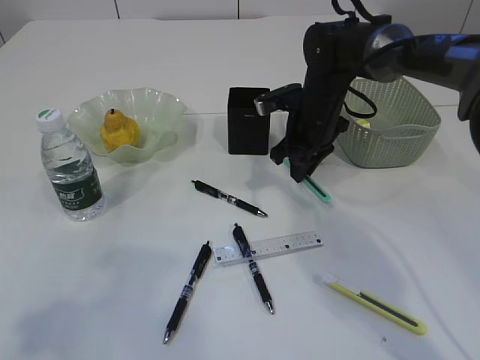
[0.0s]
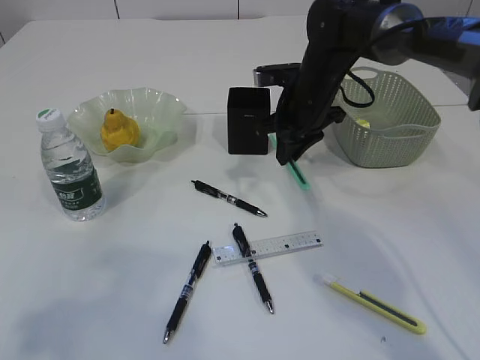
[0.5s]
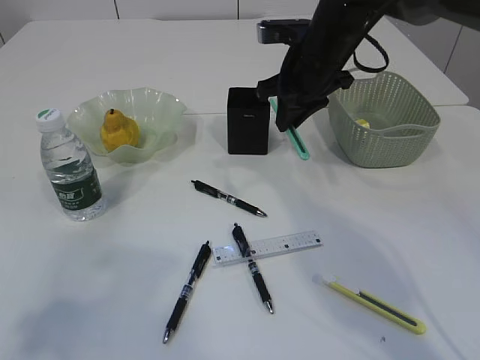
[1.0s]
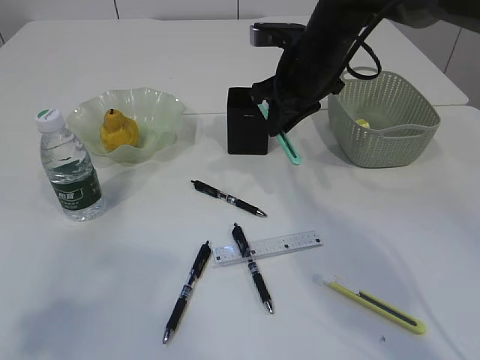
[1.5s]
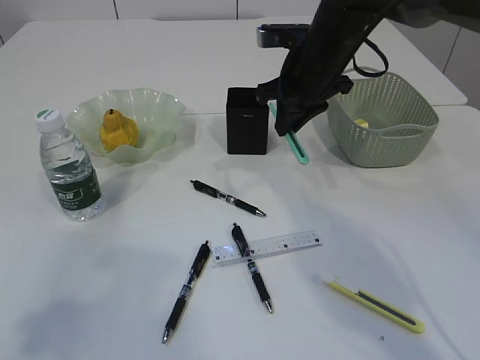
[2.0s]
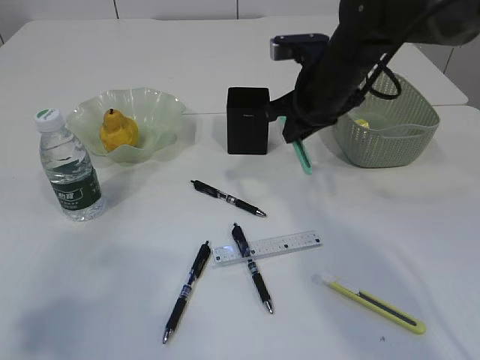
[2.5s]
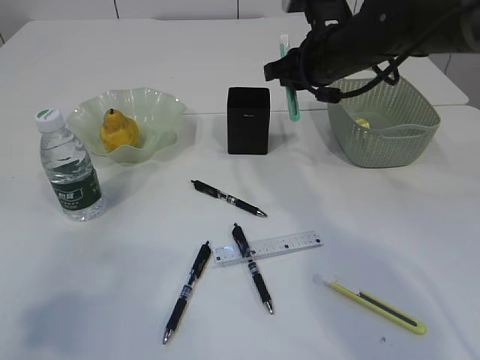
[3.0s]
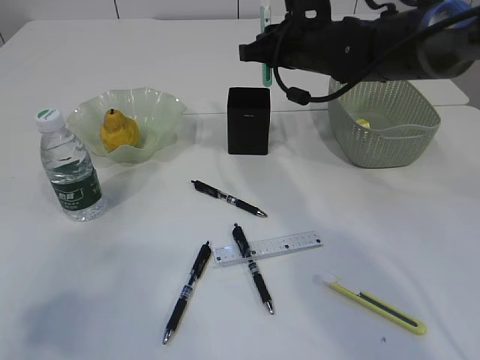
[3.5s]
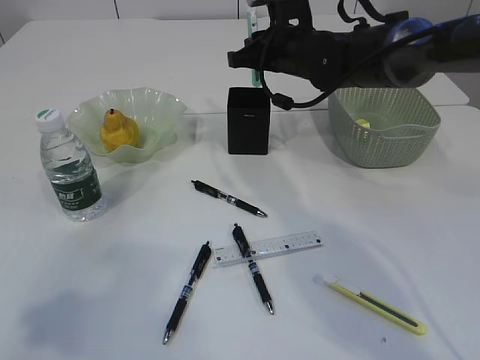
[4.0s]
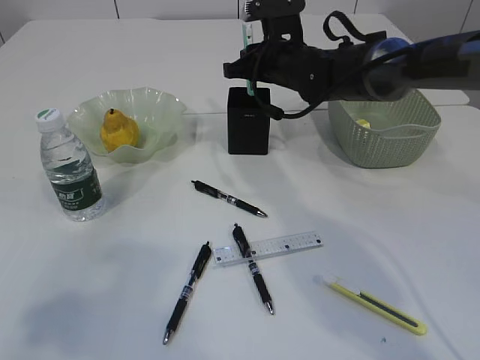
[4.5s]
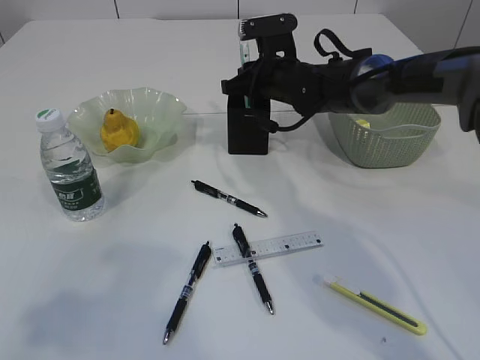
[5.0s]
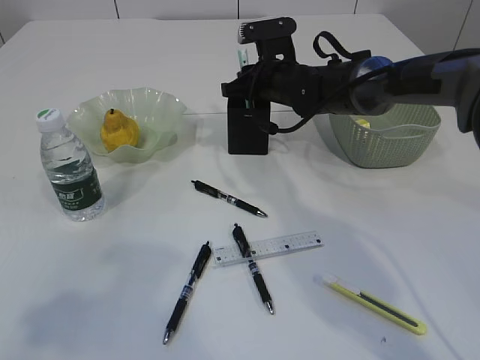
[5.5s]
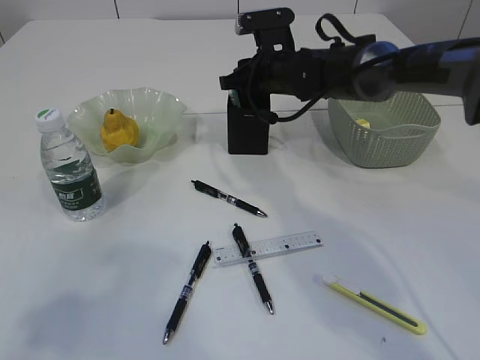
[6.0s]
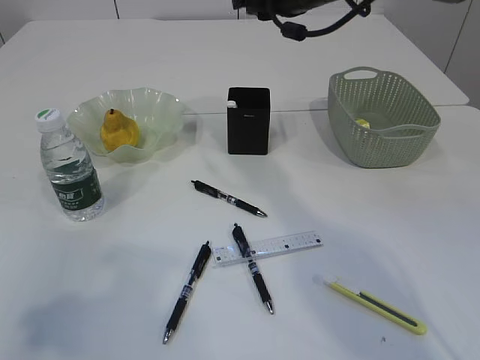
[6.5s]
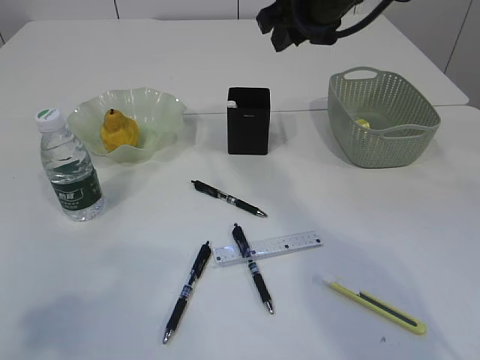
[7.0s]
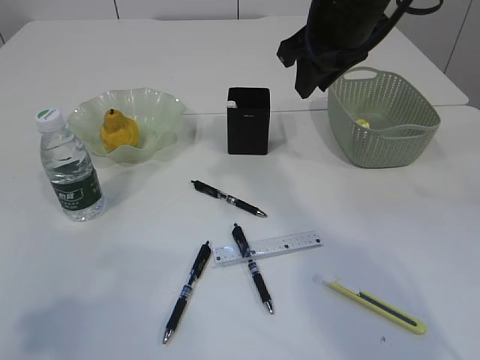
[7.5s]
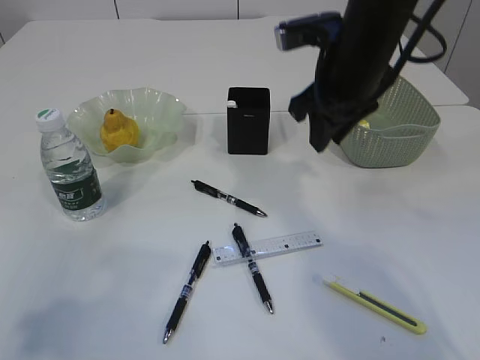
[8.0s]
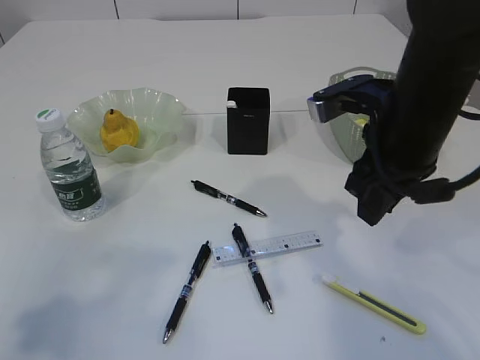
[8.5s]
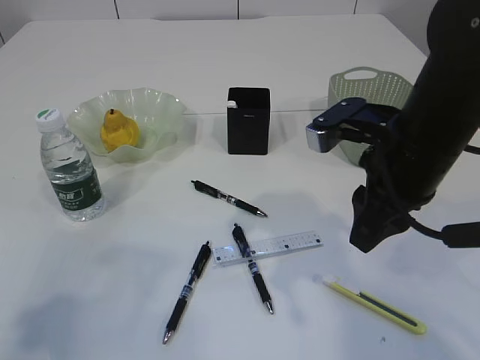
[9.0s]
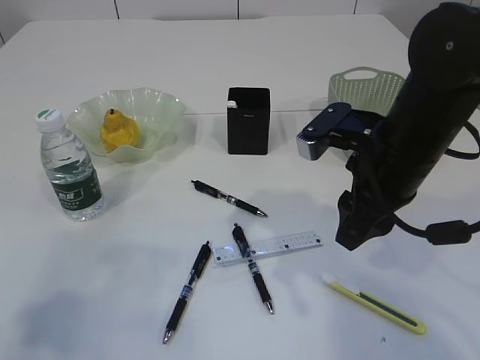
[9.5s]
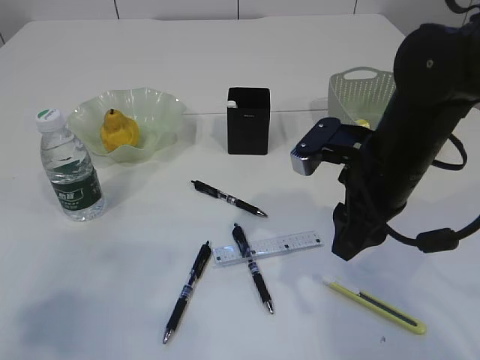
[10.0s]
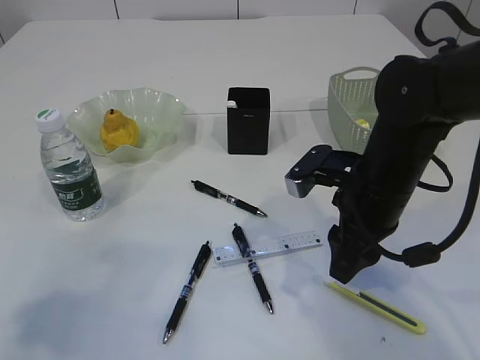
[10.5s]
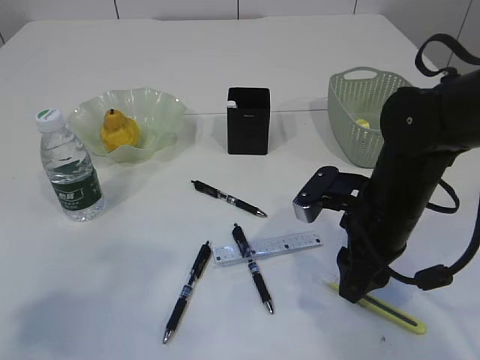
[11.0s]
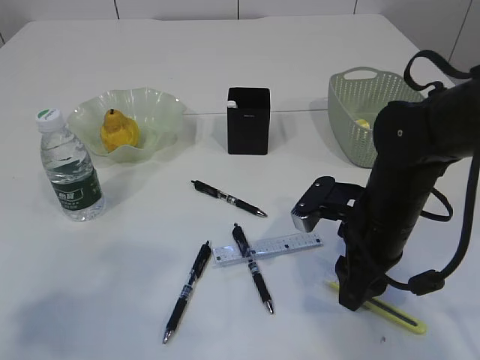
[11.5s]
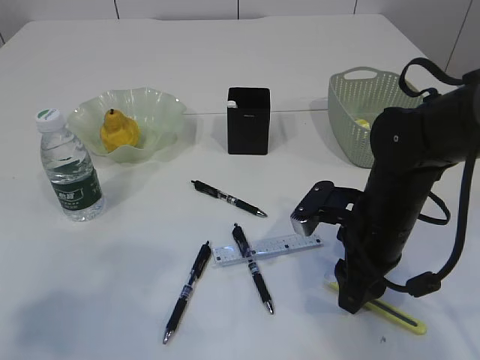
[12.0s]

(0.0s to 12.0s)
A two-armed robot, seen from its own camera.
Step, 2.0s - 6.0s: Place the blue knife into the pen holder.
0.0s - 2.0s: The right gripper shifts about 10 cm upward.
4.0s - 6.0s: The right gripper changes place by some 5 cm.
6.0s - 8.0s: The right gripper moves backward and upward, approximately 15 cm.
8.0s - 10.0s: The right gripper moves backward and downward, approximately 10 cm.
10.0s - 12.0s: The right gripper moves downward, about 10 cm.

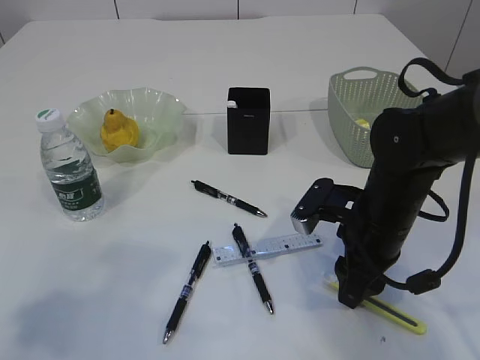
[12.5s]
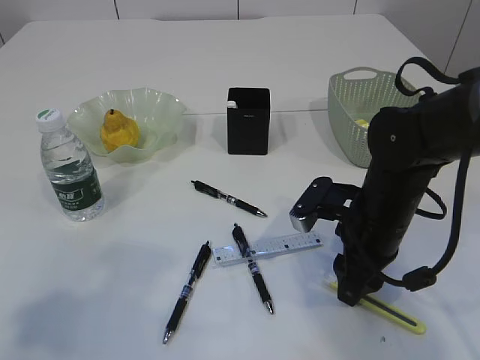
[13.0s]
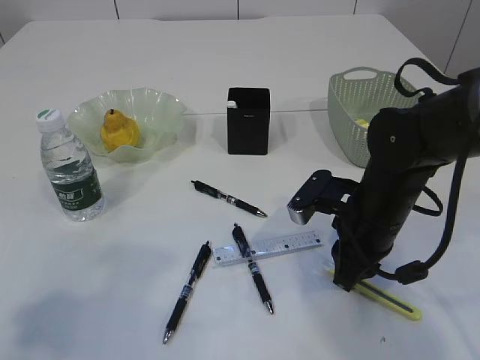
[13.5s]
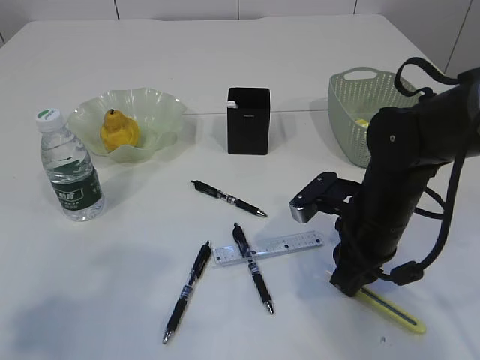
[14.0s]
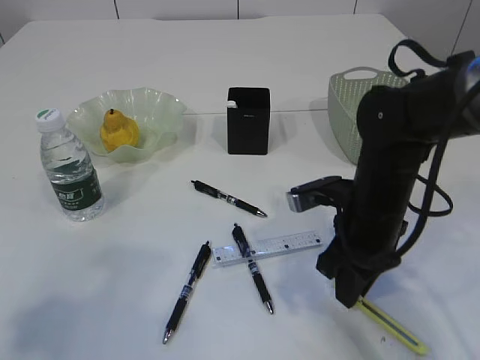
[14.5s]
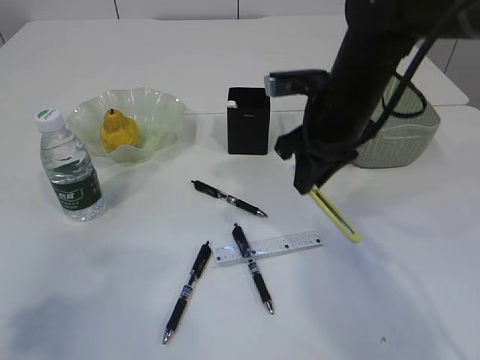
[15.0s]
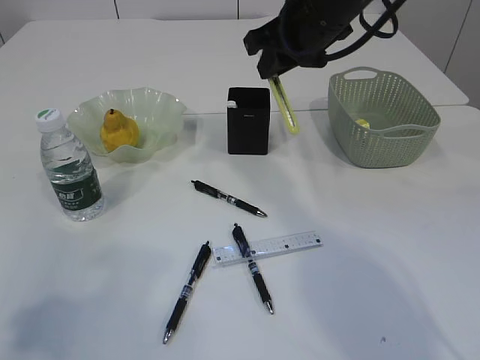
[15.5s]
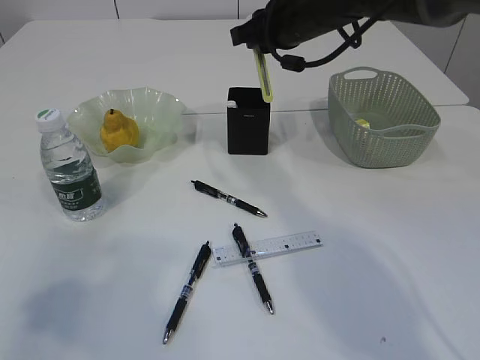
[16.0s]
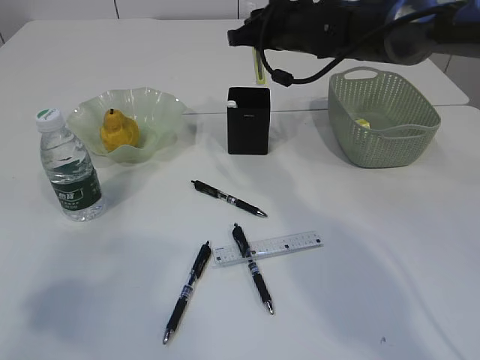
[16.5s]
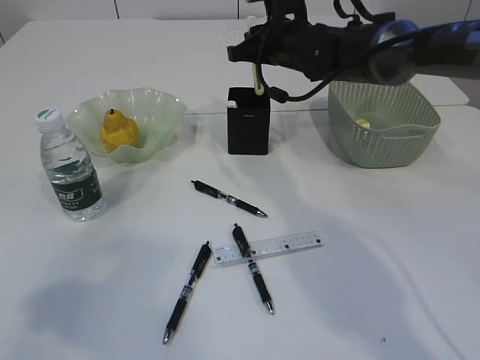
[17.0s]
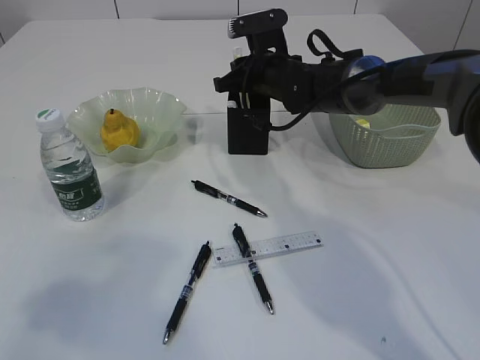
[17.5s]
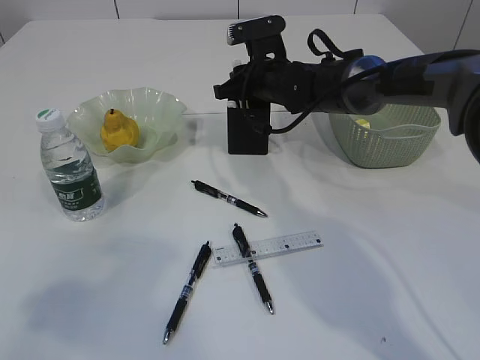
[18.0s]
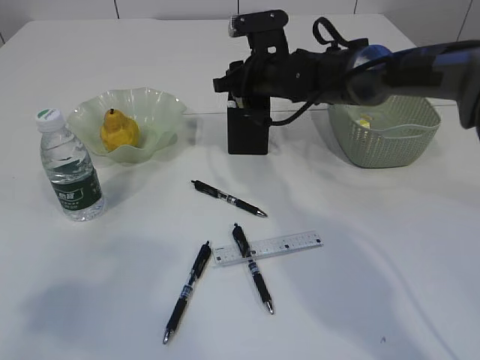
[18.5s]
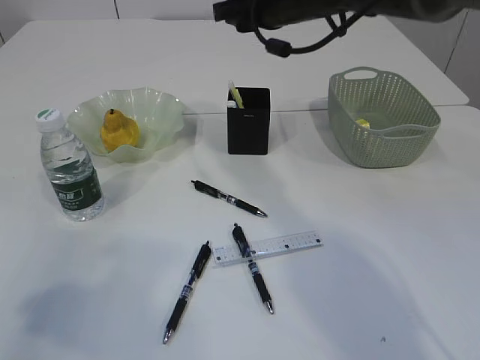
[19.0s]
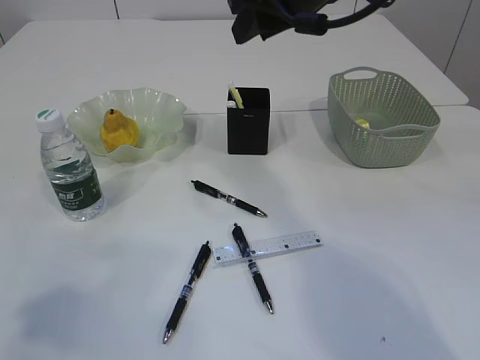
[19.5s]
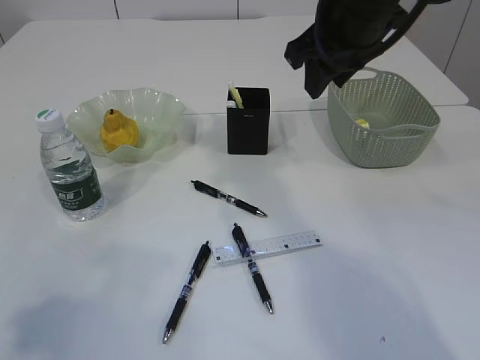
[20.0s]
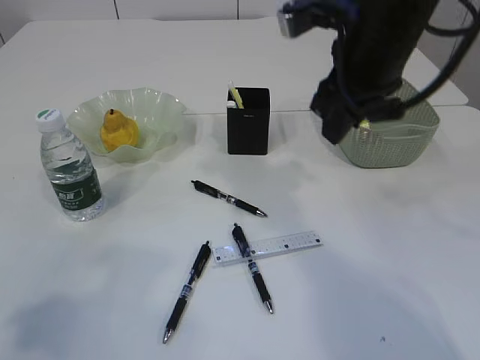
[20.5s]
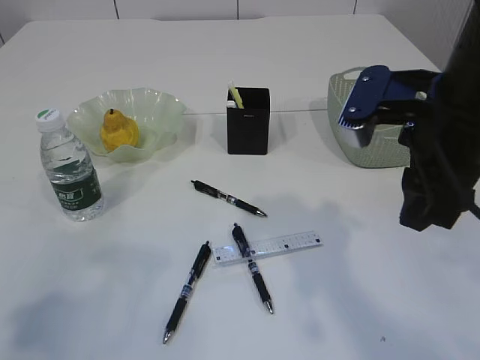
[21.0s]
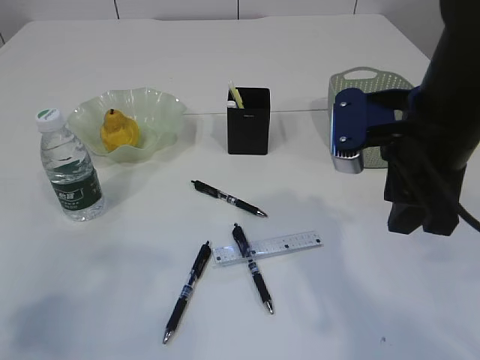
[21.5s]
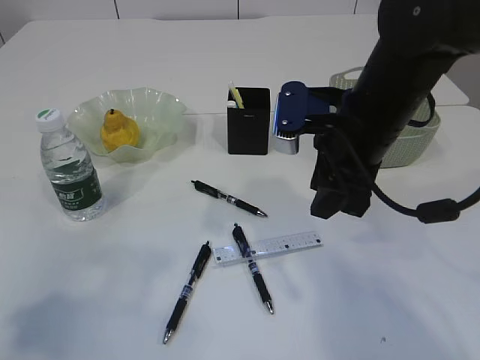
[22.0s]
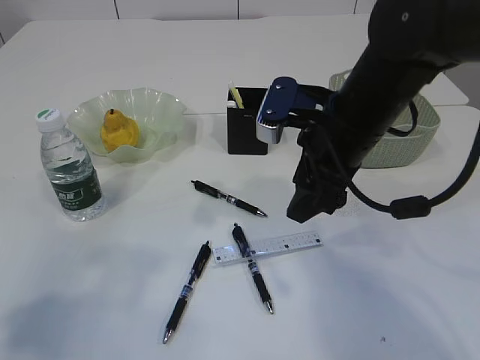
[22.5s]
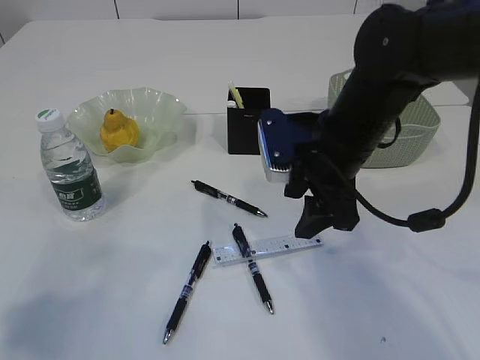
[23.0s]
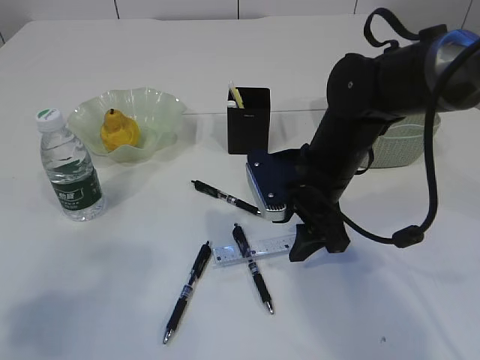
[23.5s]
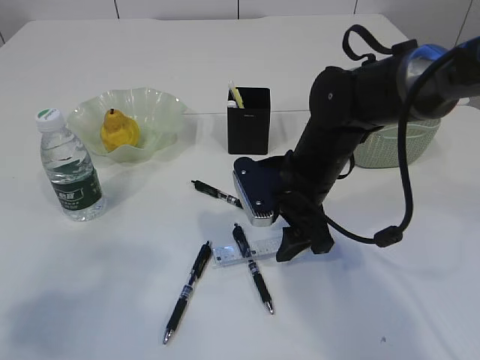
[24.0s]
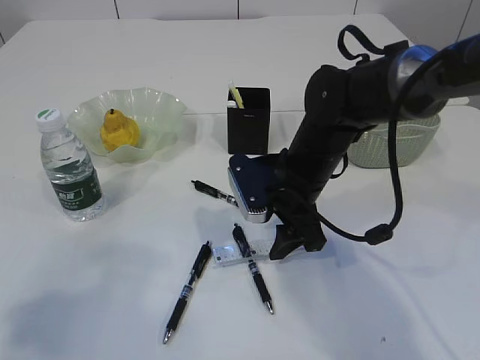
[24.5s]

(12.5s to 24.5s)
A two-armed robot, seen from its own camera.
Step, 12.5s - 15.0s: pick up the yellow knife.
Step, 15.5s - 18.5s: place the yellow knife into the pen holder.
12.5s - 14.5s: The right gripper closes up.
14.5s - 16.5s: The right gripper heads forward and upward, covering some 25 cm.
16.5s - 18.5s: The right gripper heads downward, covering about 5 cm, and opens.
18.5s - 20.5s: The right gripper shifts approximately 20 cm backward and upward.
20.5s - 22.5s: The right gripper is displaced downward by approximately 10 cm, and goes backward and returns, approximately 10 cm each way.
22.5s - 24.5s: The right gripper shifts about 10 cm downward.

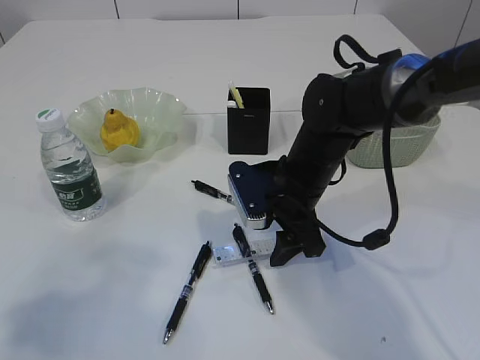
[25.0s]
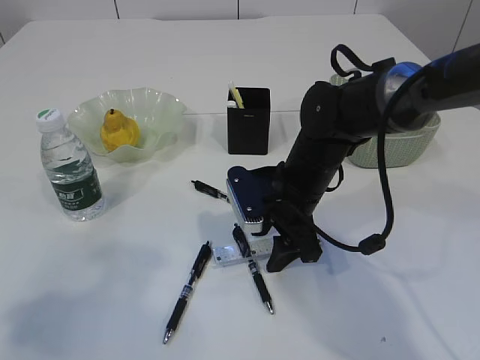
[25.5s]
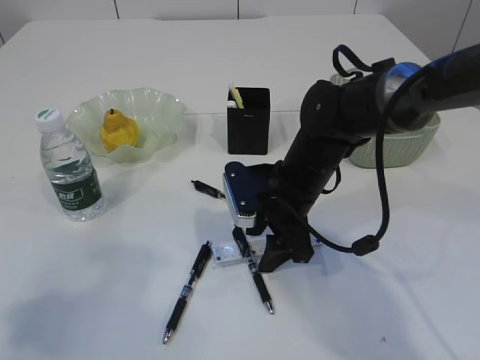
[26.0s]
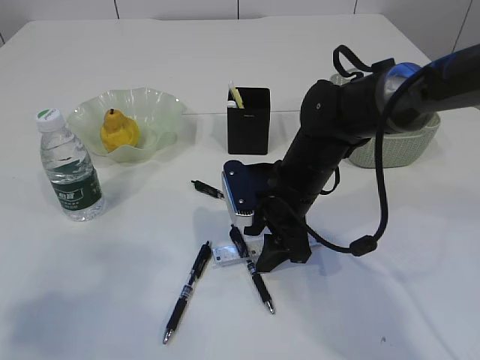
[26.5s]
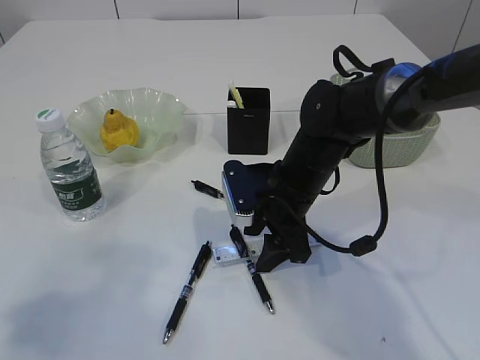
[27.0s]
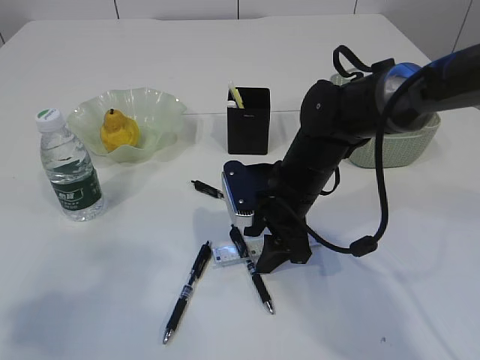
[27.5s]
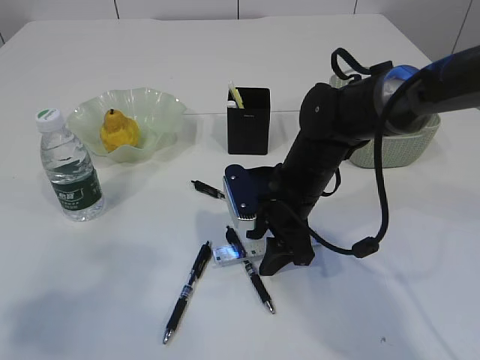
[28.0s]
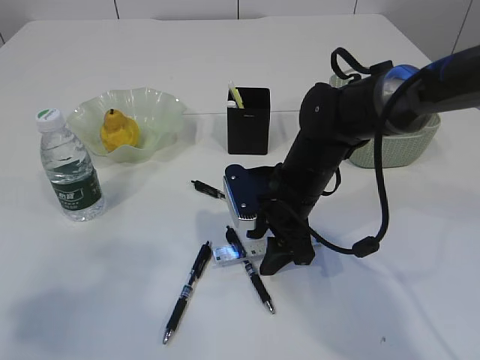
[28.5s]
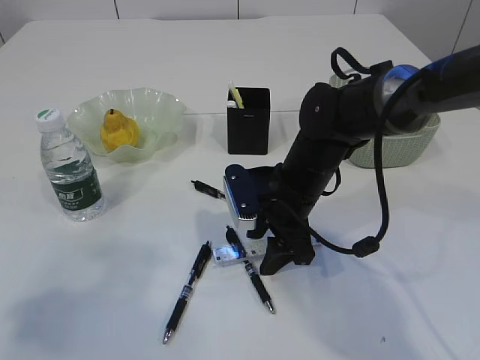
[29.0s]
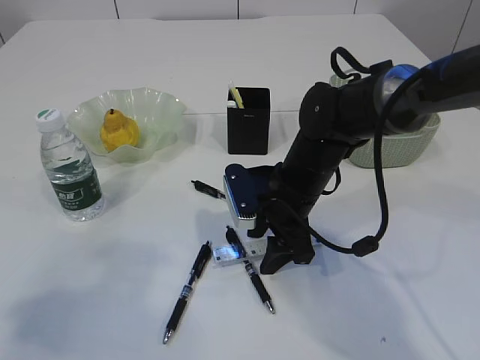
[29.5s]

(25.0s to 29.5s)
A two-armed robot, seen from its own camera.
25.0s - 27.0s: The grippers move only a little.
27.0s - 29.5s: Neither gripper changes place.
